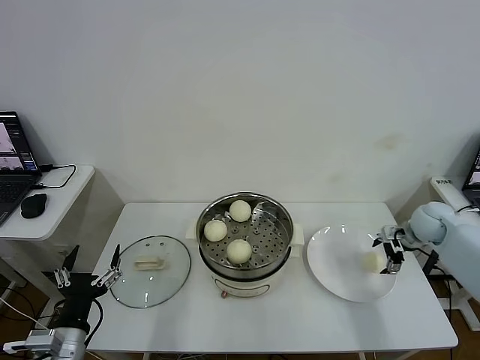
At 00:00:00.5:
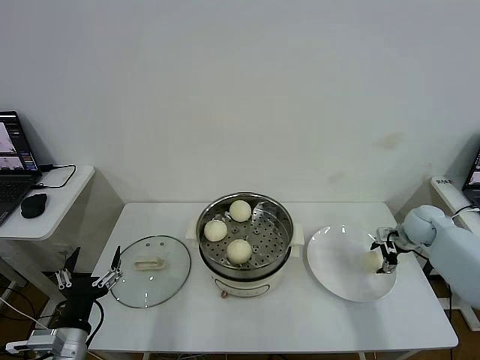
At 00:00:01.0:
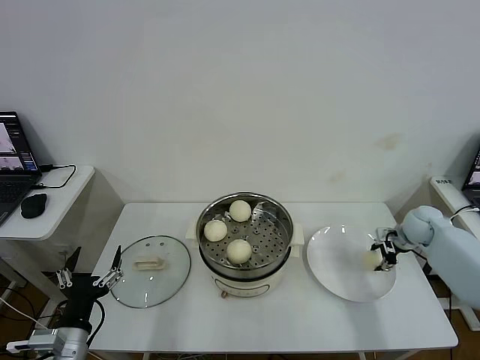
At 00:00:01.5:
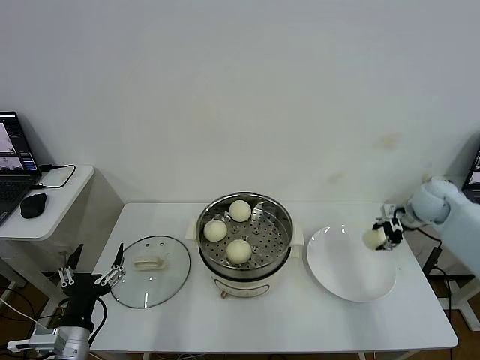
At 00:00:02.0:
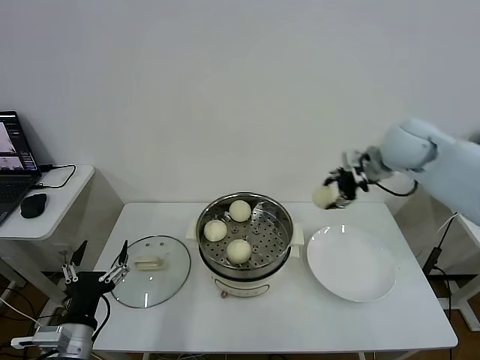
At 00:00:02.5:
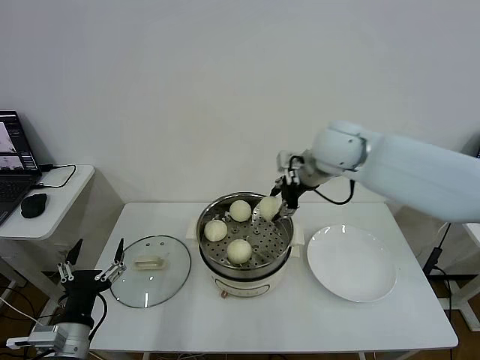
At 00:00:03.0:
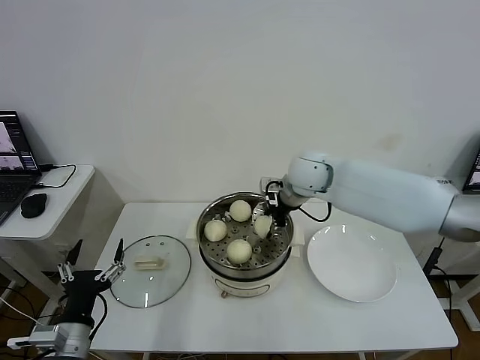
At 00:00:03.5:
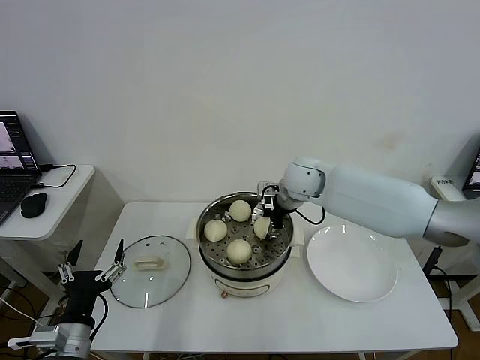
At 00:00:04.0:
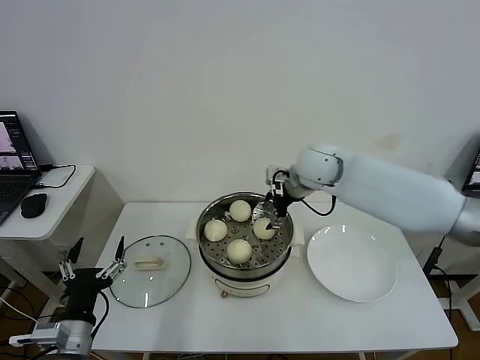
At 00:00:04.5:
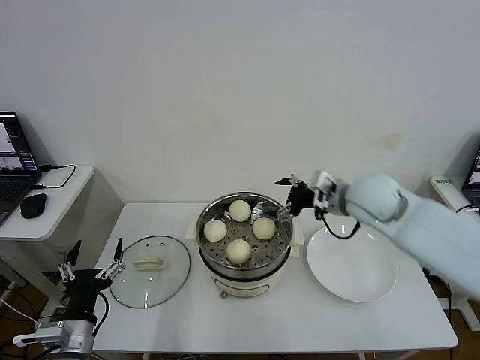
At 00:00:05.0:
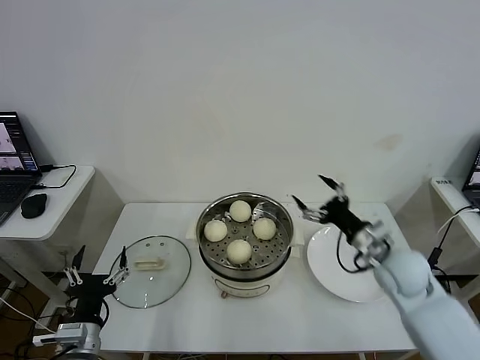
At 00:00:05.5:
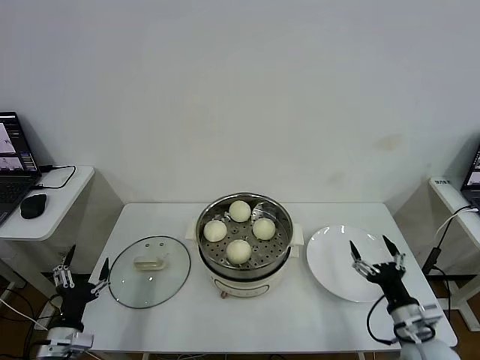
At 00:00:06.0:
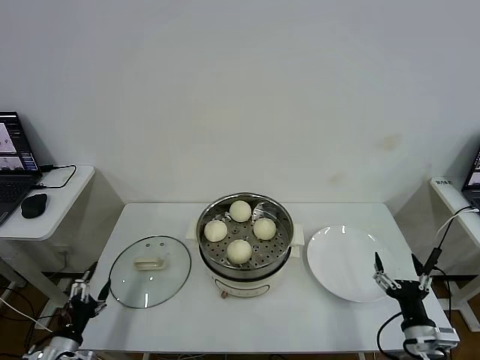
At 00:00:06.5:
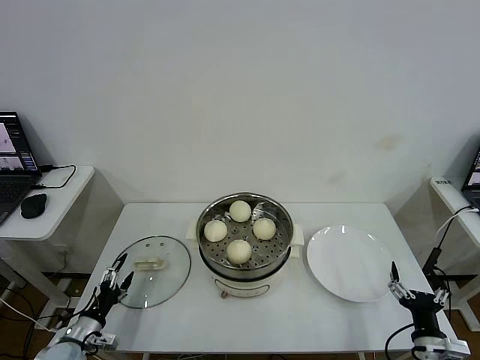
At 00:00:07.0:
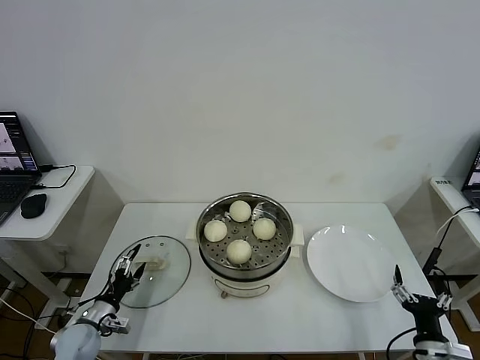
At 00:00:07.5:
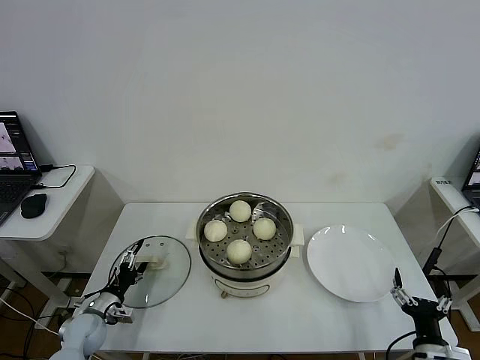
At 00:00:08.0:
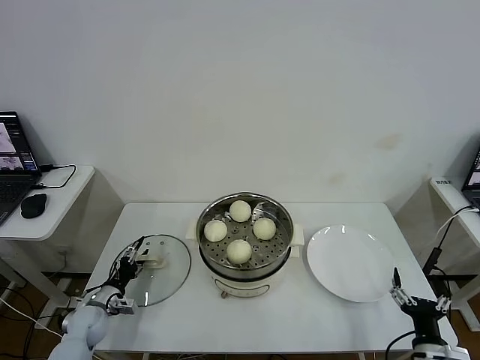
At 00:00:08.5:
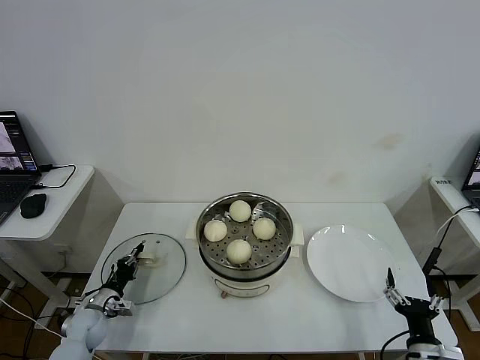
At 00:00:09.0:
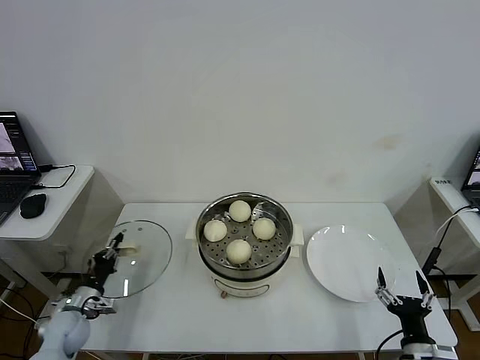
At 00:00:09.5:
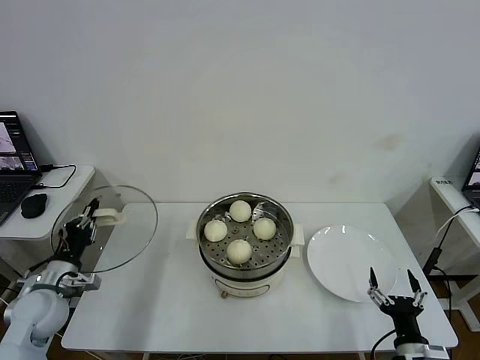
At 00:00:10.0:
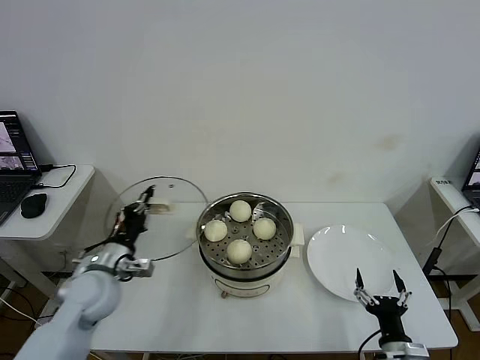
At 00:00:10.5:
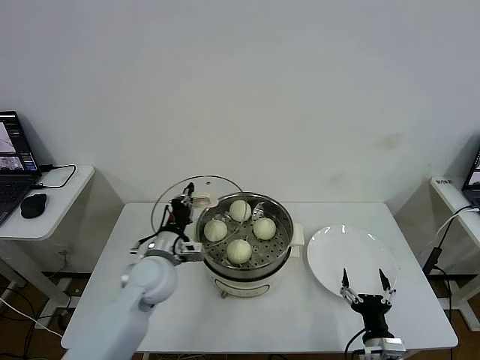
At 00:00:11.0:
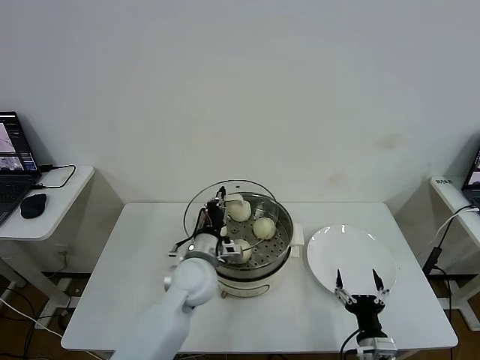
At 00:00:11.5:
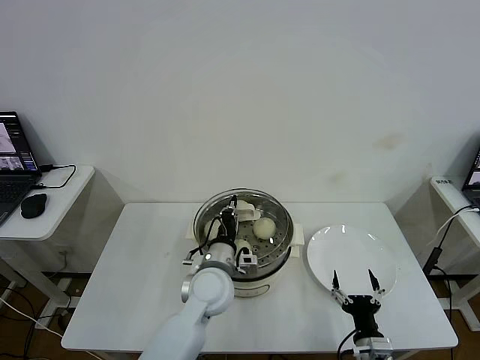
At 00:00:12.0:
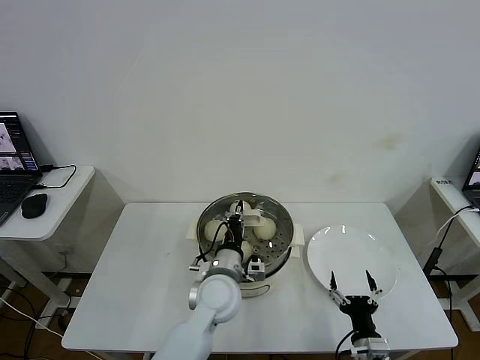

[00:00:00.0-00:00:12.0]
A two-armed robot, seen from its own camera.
Step, 00:00:01.0 to 00:00:03.5: Place the baozi on the steamer with right gripper.
Step, 00:00:04.0 to 00:00:08.5: Grasp the pot lid with left gripper.
00:00:00.0 to 00:00:02.0: The right gripper is displaced upward and to the left by some 25 cm, and closes.
00:00:02.0 to 00:00:04.0: The right gripper heads to the left and downward, covering approximately 15 cm, and opens.
00:00:04.0 to 00:00:06.0: The left gripper moves downward and to the left, some 20 cm, while the right gripper goes approximately 50 cm backward, downward and to the right.
00:00:06.0 to 00:00:08.0: The left gripper travels forward by roughly 15 cm.
00:00:08.0 to 00:00:10.0: The right gripper changes place by roughly 5 cm. The left gripper travels upward and to the right by roughly 20 cm, and closes up.
00:00:10.0 to 00:00:12.0: The left gripper goes approximately 25 cm to the right, while the right gripper changes place by approximately 5 cm.

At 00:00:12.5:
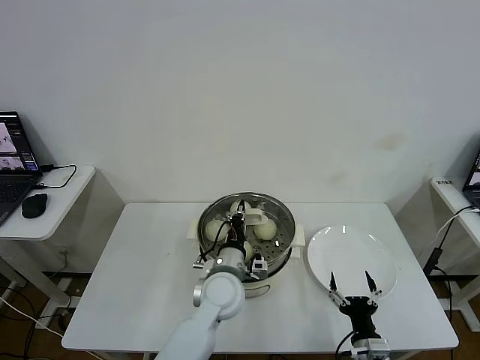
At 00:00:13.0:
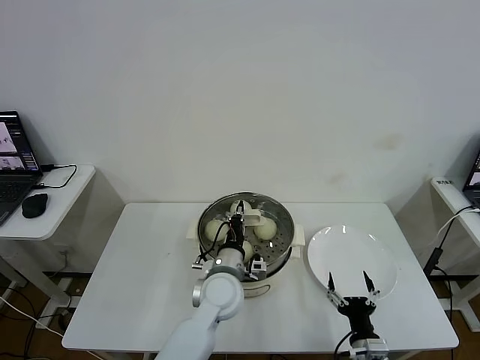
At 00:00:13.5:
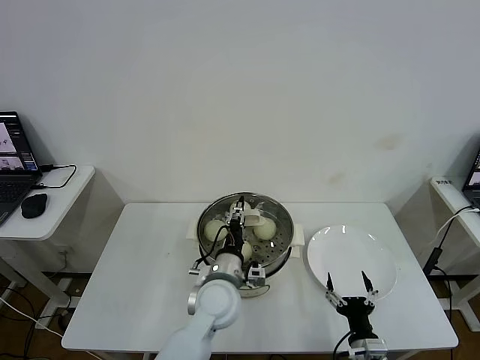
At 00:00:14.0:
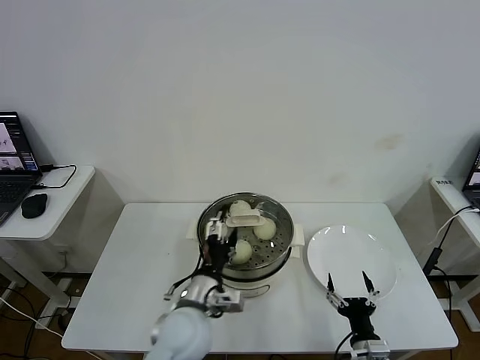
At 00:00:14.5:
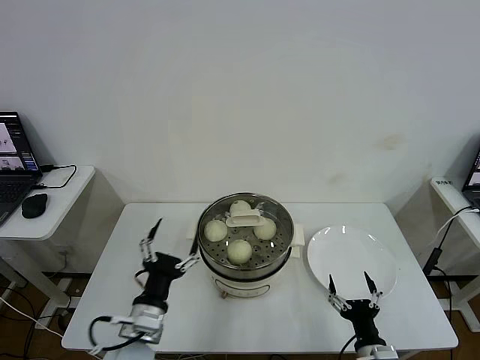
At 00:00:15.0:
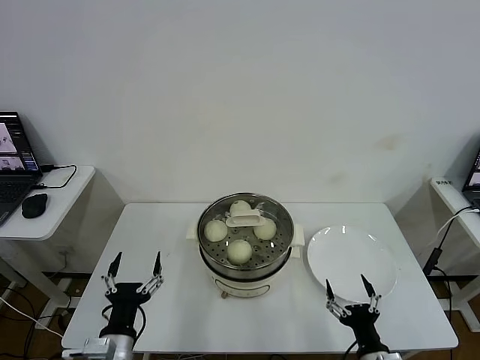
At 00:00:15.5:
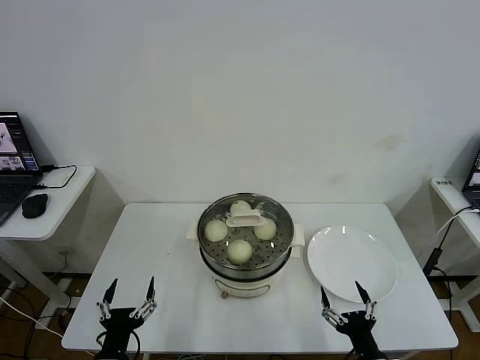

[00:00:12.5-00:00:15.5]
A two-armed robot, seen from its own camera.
00:00:12.5 to 00:00:14.0: The left gripper travels backward and to the left by about 10 cm, and opens its fingers.
00:00:14.0 to 00:00:15.5: The left gripper heads to the left, backward and downward, covering about 25 cm. Meanwhile the right gripper changes place by roughly 5 cm.

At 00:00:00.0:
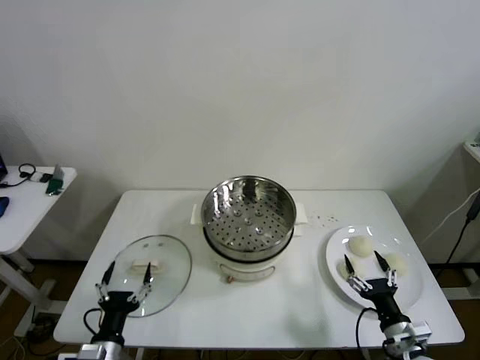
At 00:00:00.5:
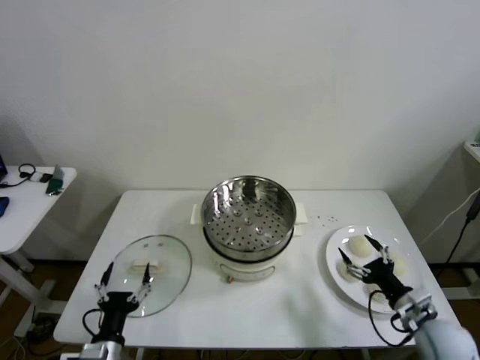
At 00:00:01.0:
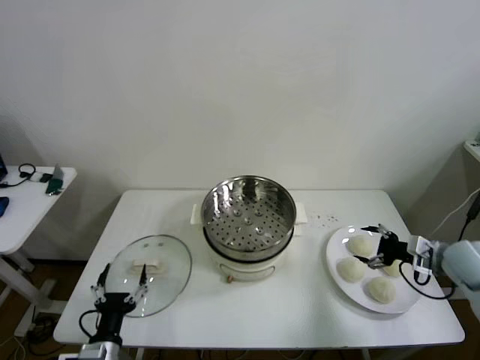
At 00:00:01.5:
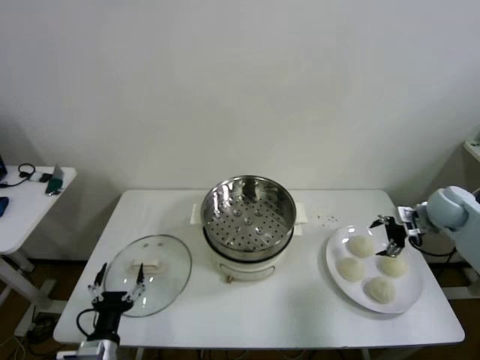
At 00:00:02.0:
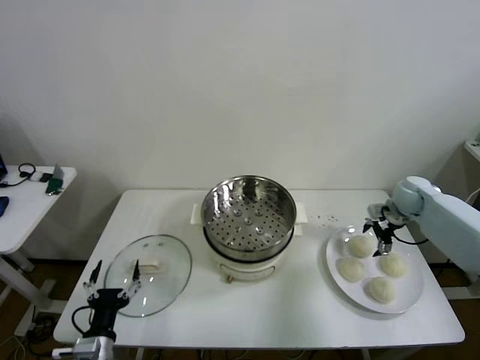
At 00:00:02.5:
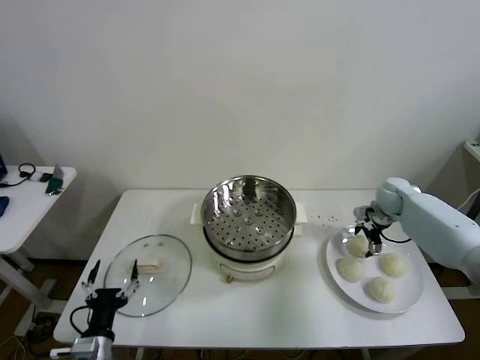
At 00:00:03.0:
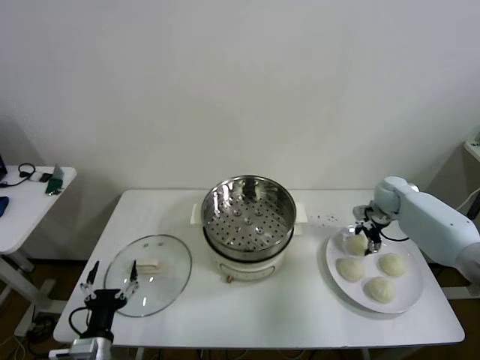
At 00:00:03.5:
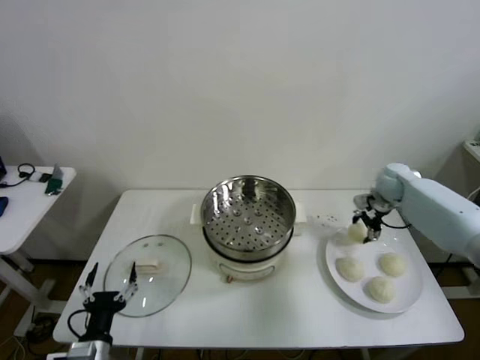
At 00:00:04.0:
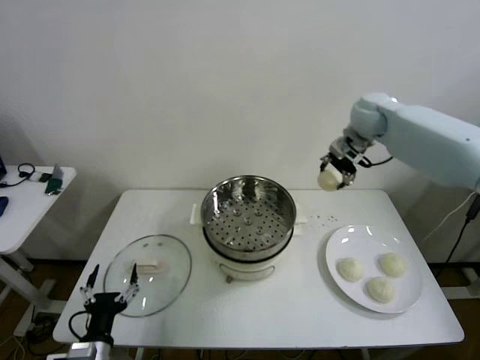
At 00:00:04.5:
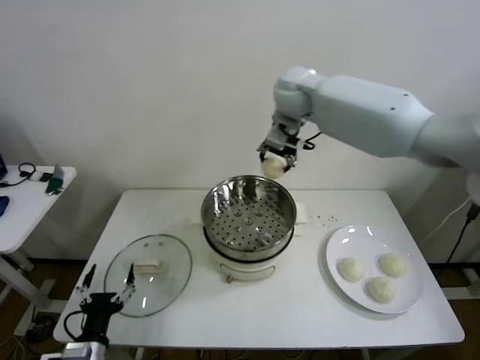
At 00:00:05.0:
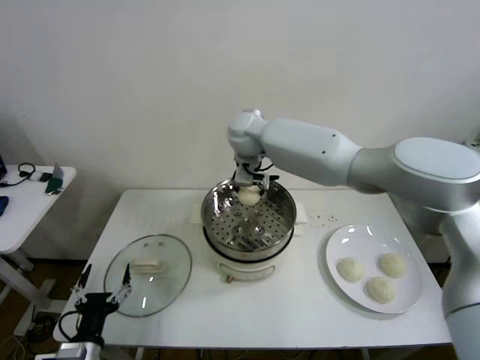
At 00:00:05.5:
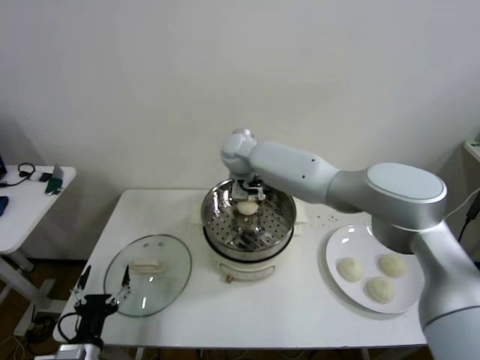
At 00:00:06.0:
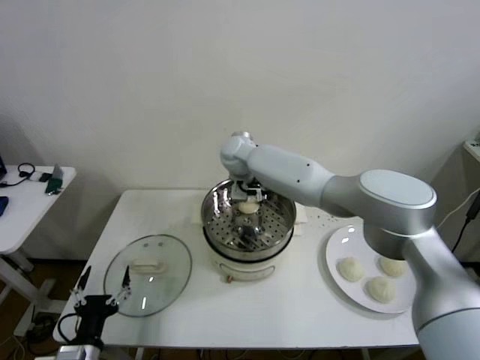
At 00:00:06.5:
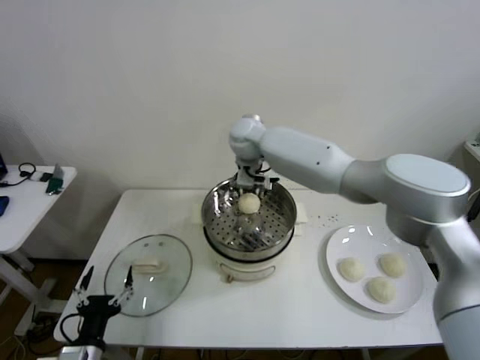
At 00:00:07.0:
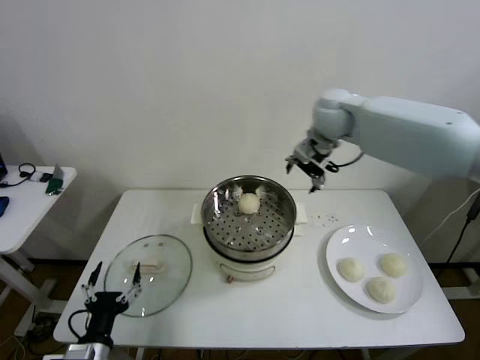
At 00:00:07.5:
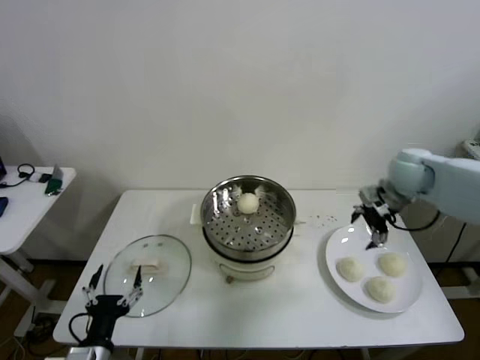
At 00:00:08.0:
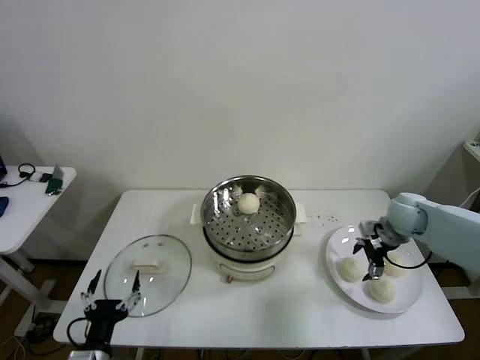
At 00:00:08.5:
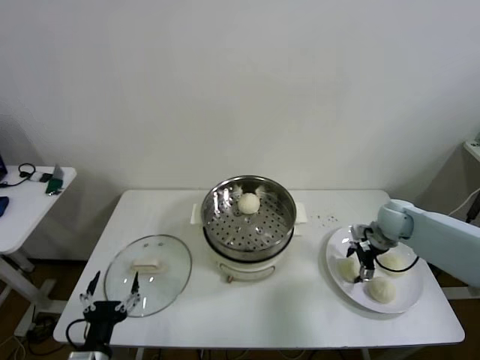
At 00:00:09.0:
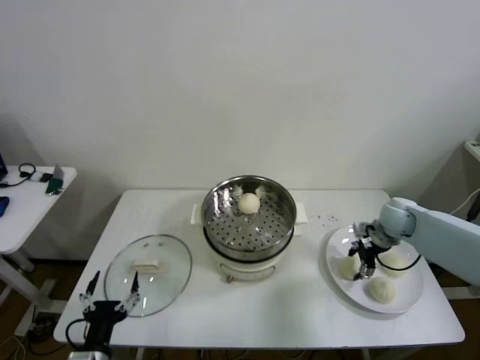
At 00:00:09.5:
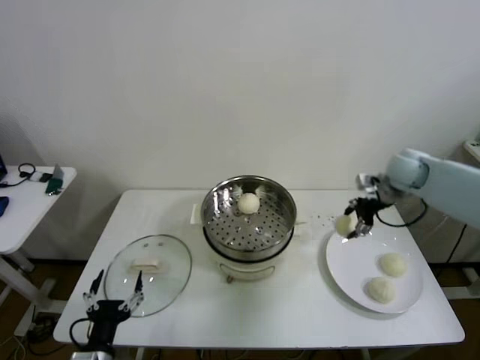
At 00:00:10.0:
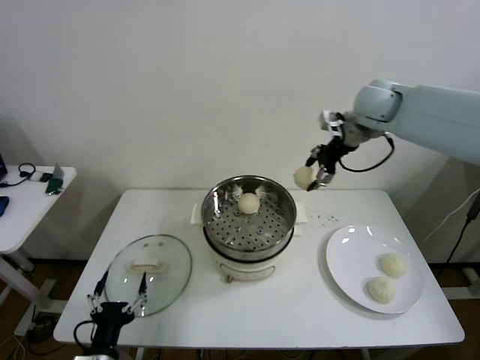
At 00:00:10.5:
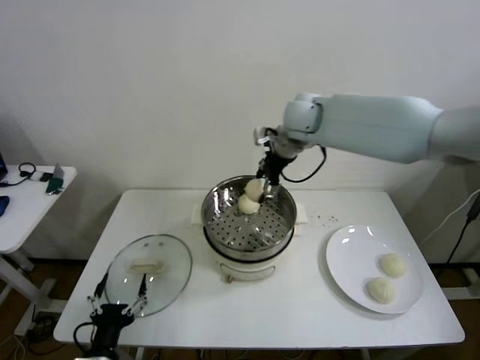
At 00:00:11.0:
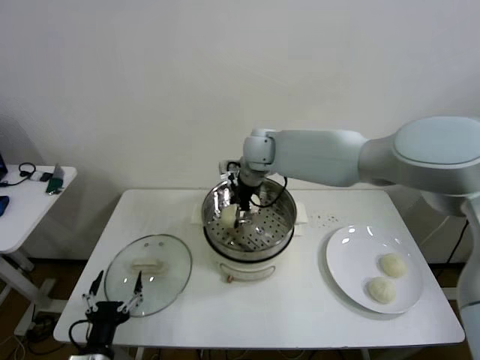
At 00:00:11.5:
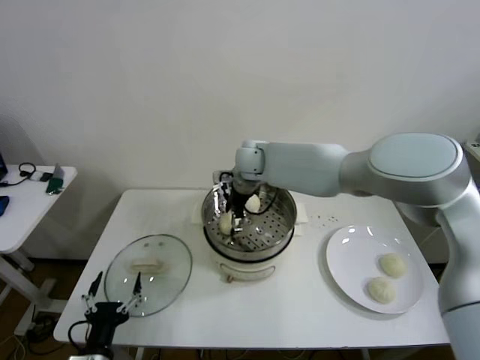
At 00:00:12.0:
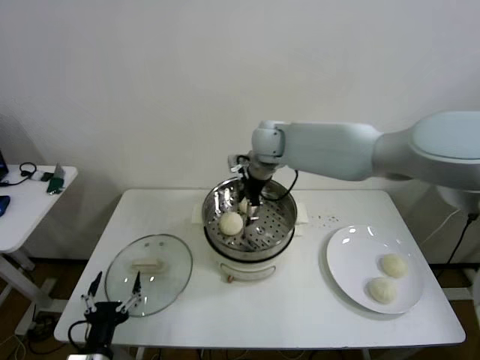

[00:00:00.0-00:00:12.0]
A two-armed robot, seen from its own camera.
Step, 00:00:00.0 to 00:00:02.5: Grasp the baozi in the plate with right gripper.
Step, 00:00:03.5 to 00:00:05.5: Place the baozi on the steamer with right gripper.
Step, 00:00:06.0 to 00:00:08.5: Grasp the baozi in the plate with right gripper.
Step, 00:00:09.0 to 00:00:11.0: Place the baozi on the steamer with right gripper.
00:00:02.0 to 00:00:04.0: The right gripper shifts roughly 30 cm upward and to the left, and closes up.
00:00:04.0 to 00:00:06.0: The right gripper shifts approximately 30 cm to the left and downward, and opens its fingers.
00:00:06.0 to 00:00:08.0: The right gripper is displaced to the right by some 40 cm.
00:00:08.0 to 00:00:10.0: The right gripper shifts roughly 30 cm upward and to the left, and closes up.
00:00:10.0 to 00:00:12.0: The right gripper heads to the left and downward, covering some 20 cm, and opens.
